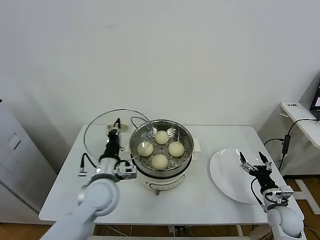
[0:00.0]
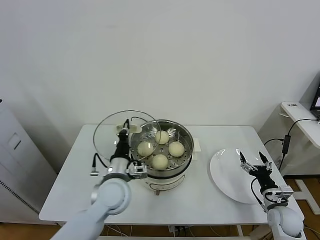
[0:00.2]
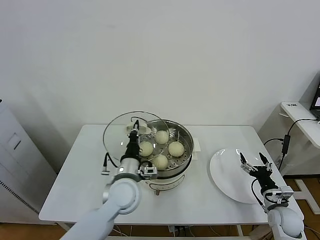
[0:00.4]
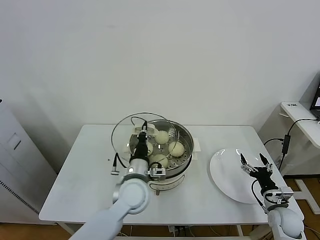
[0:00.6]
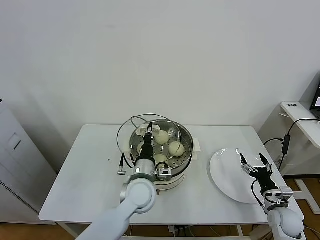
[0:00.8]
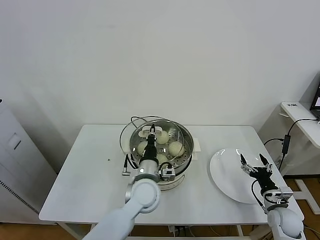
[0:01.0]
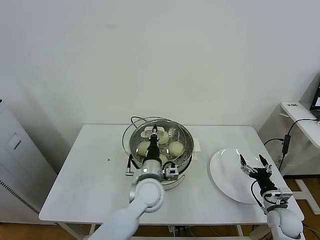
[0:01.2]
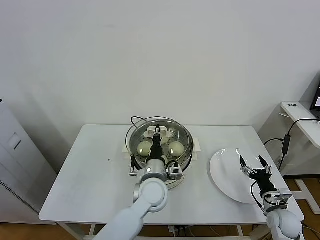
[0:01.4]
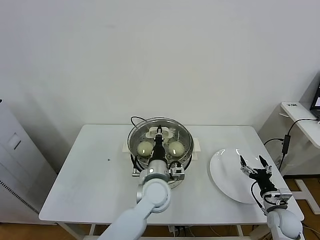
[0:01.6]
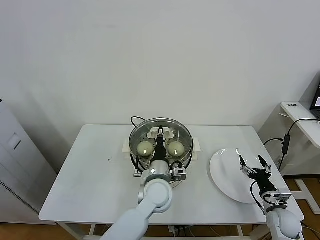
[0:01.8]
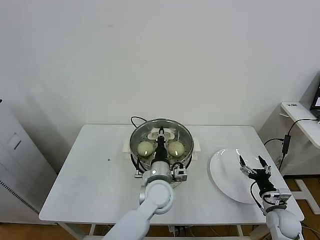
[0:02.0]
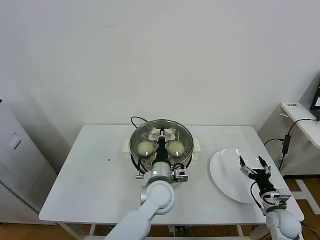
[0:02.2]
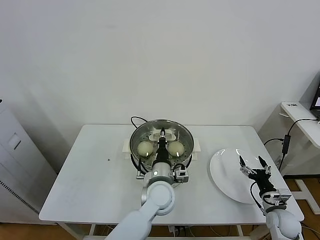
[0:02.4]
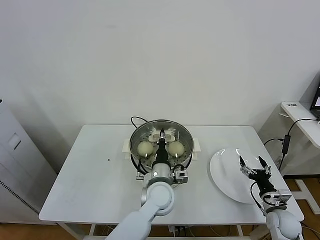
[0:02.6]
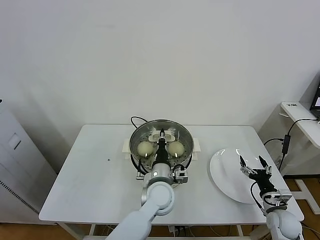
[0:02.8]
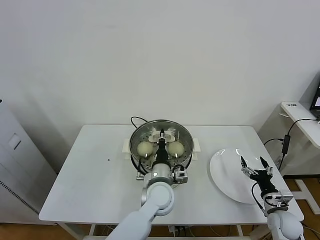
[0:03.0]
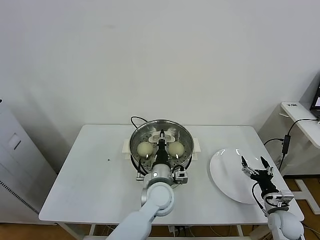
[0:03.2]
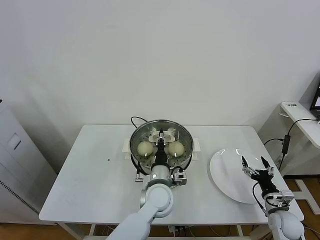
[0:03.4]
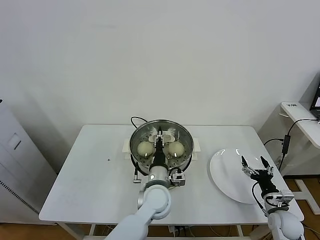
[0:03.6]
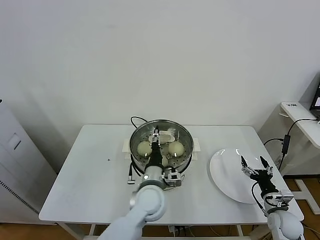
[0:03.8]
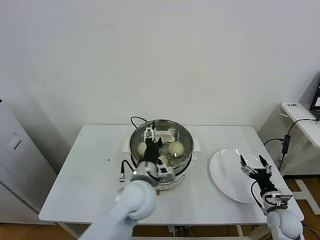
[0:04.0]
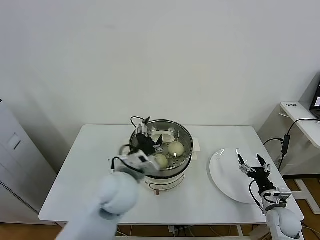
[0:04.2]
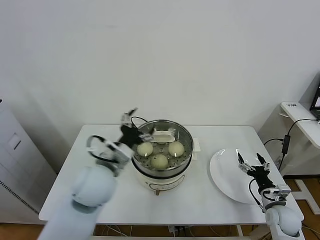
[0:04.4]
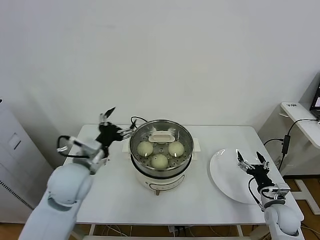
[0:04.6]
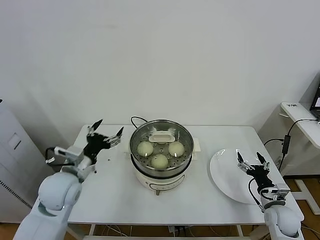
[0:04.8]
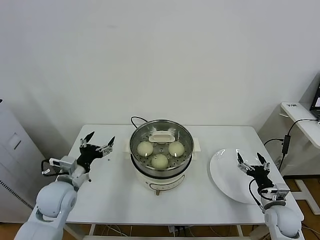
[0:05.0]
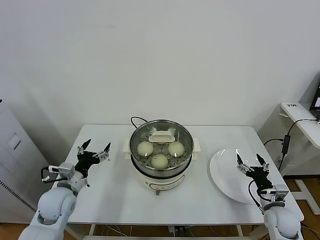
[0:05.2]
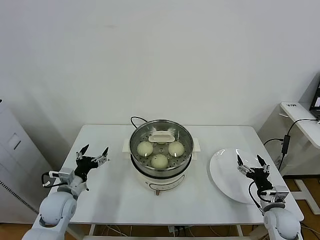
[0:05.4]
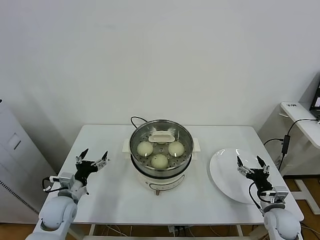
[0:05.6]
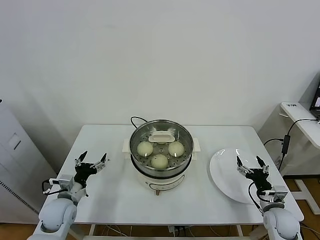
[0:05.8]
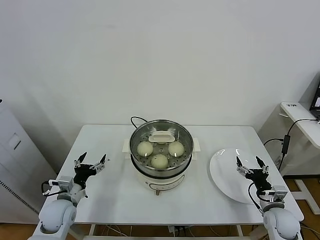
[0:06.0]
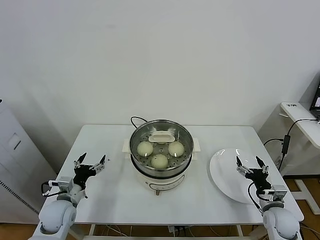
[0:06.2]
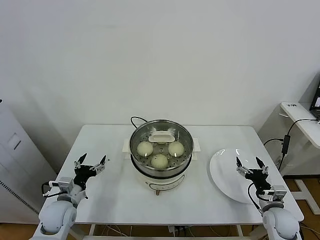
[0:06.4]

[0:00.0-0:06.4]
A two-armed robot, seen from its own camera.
Task of the whole recording: take steamed baozi put them in steamer.
Step, 0:00.0 to 0:04.0: Place the pot lid on the steamer with left gripper.
0:00.0 to 0:01.6: The left gripper moves to the right, some 15 cm.
0:01.6 to 0:03.2: There are only small adjustments of the grippers.
0:03.2 to 0:04.8: The left gripper heads to the left and upward, covering some 25 cm, and opens.
0:04.8 to 0:06.4: The left gripper heads downward and to the left, covering about 20 cm.

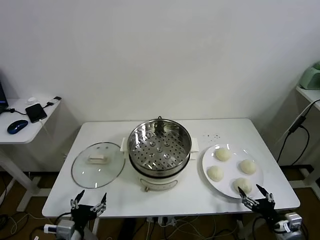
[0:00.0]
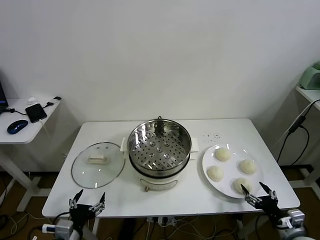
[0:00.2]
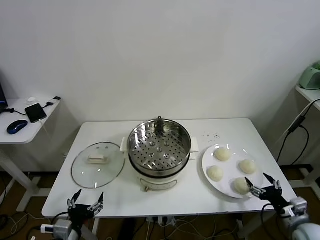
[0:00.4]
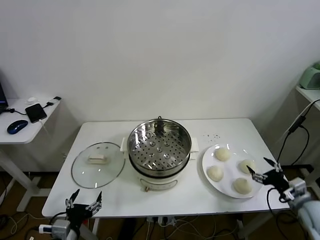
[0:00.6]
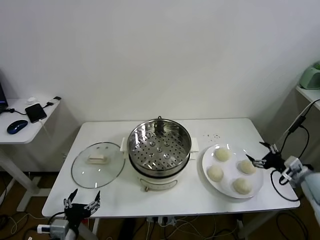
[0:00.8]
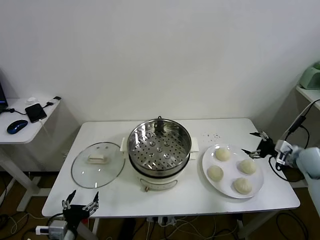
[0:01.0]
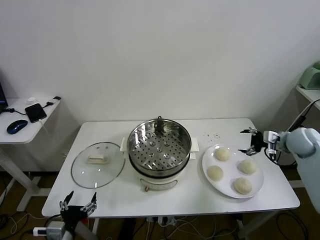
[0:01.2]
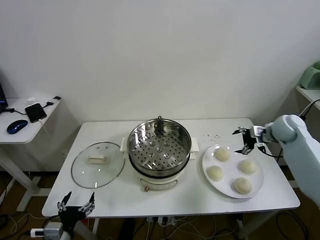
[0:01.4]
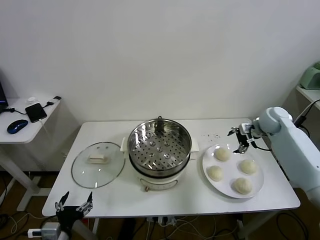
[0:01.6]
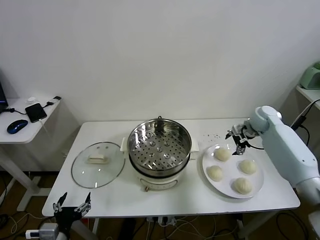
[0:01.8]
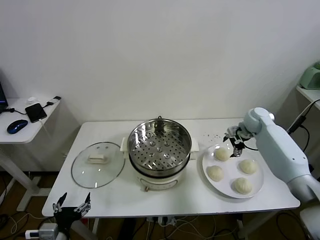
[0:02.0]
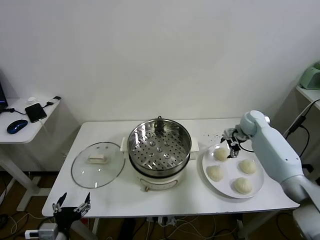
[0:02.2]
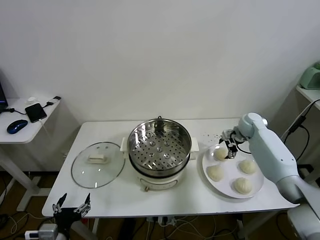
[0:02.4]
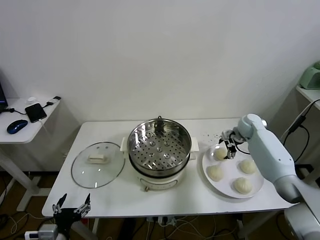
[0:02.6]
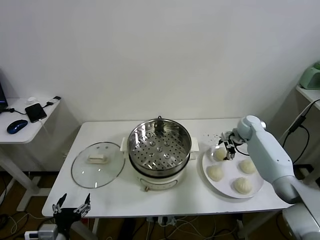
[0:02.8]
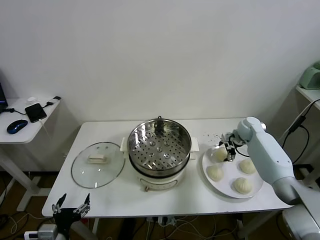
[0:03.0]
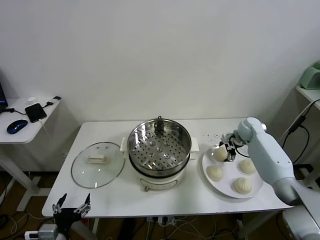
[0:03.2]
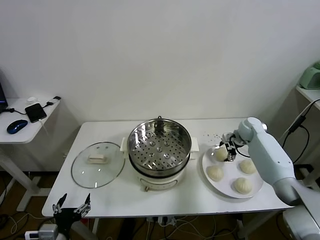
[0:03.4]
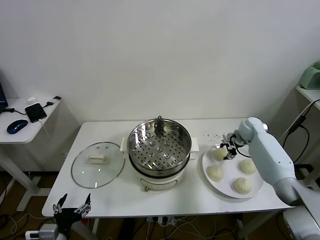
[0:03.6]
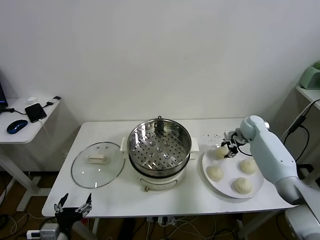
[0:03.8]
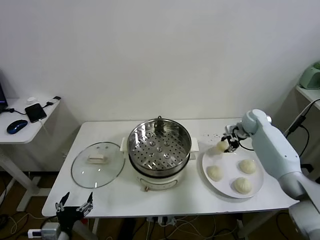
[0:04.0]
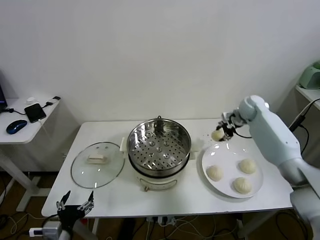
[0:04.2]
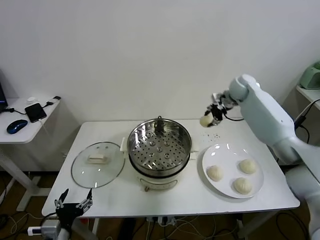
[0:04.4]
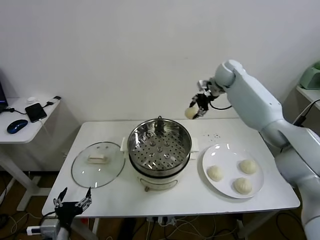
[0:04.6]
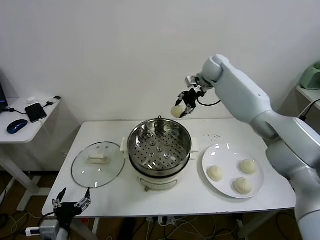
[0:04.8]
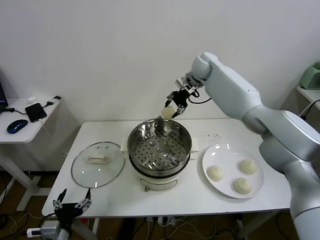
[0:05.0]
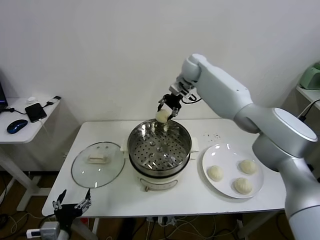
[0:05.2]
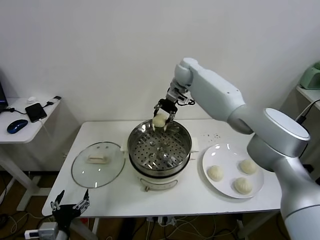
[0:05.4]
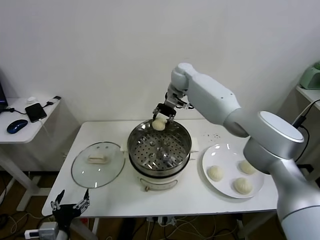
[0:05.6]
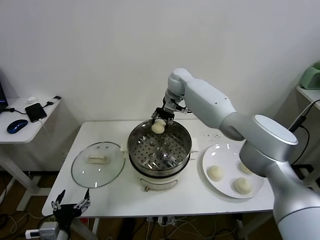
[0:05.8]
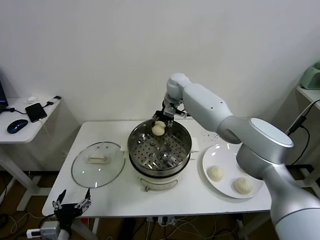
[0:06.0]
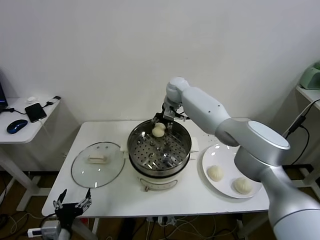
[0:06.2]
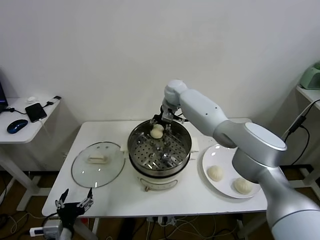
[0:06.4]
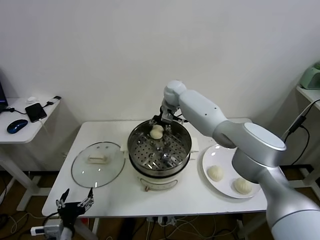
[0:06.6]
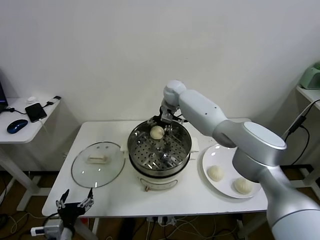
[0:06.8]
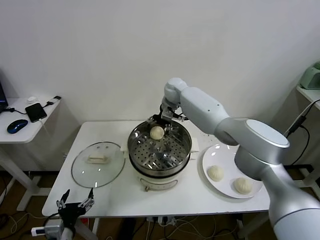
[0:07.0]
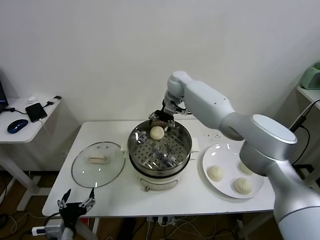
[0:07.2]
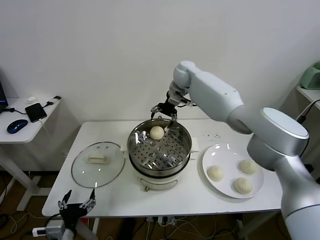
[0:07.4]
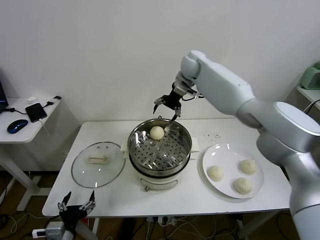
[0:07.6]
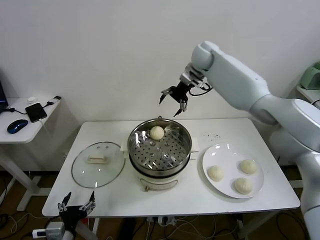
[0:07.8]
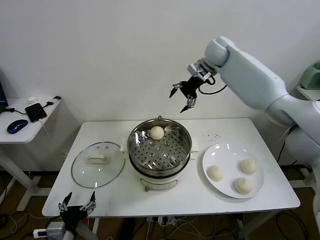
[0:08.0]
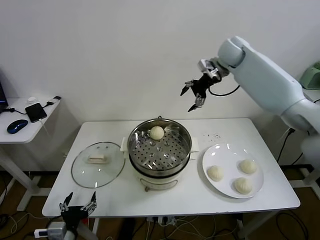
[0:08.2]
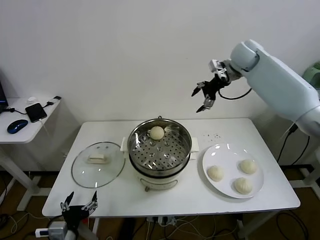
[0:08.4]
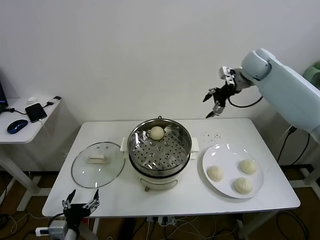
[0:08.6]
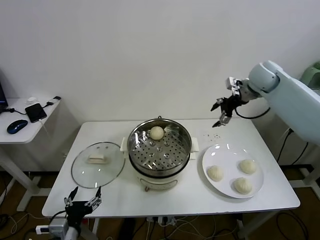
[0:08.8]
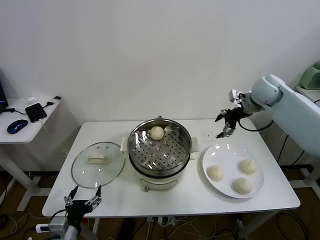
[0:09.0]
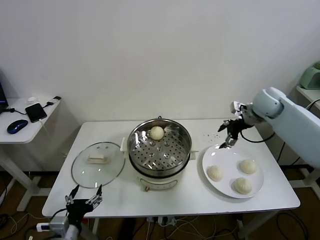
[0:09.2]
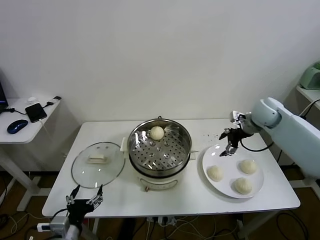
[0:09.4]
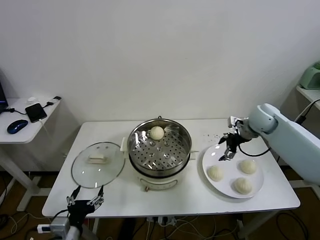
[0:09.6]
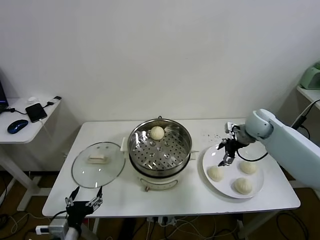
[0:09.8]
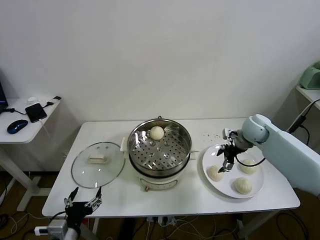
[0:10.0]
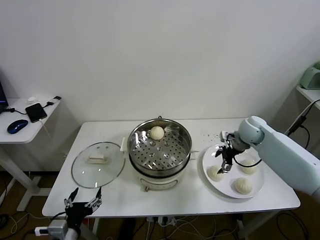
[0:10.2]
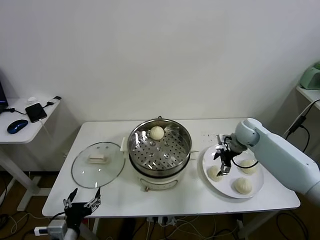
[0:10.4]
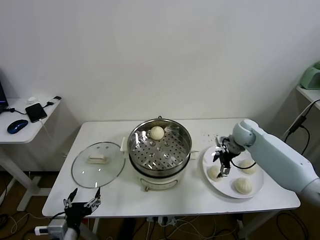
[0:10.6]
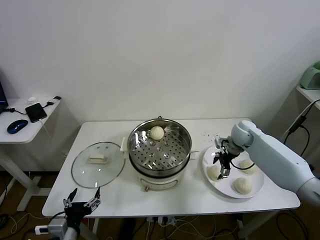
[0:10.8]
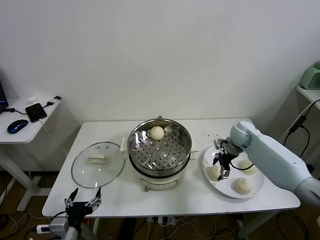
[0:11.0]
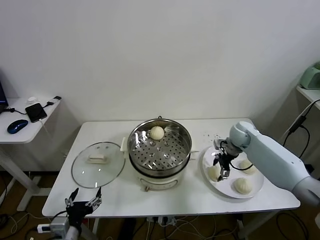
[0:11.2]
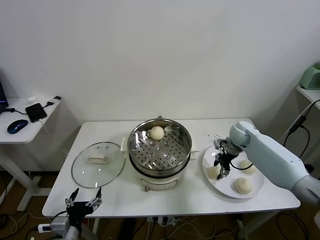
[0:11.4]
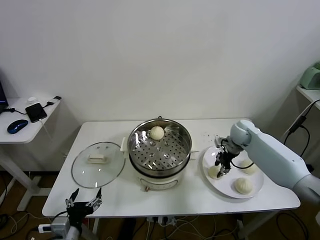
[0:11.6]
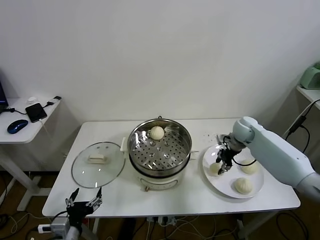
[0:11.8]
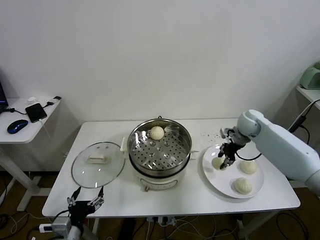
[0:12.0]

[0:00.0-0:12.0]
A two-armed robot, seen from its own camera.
Task of the whole recording: take steamed baozi put them in steamer.
Step, 0:00.0 to 0:03.6: Grasp the baozi in the plate with right gripper.
Step, 0:03.8 to 0:06.8: Place the baozi on the steamer with right gripper.
Step, 0:07.0 to 0:11.4: Grasp the baozi in the plate with right gripper.
0:01.6 to 0:03.0: The right gripper moves downward, roughly 10 cm.
0:03.0 to 0:04.4: The right gripper goes about 25 cm upward and to the left, and closes.
0:04.4 to 0:06.0: The right gripper moves to the left, some 20 cm.
0:06.0 to 0:07.6: The right gripper moves upward and to the right, approximately 15 cm, and opens up.
0:07.6 to 0:09.0: The right gripper is displaced to the right and backward by some 25 cm.
0:09.0 to 0:10.4: The right gripper goes roughly 15 cm downward.
0:10.4 to 0:12.0: The right gripper shifts by some 5 cm, and closes up.

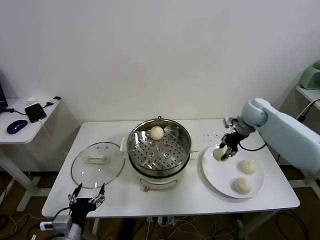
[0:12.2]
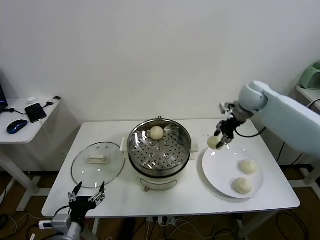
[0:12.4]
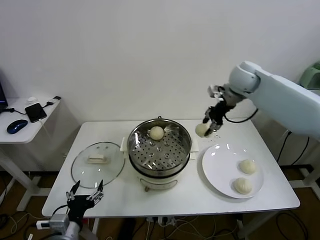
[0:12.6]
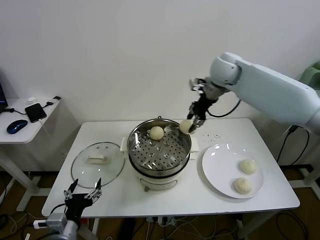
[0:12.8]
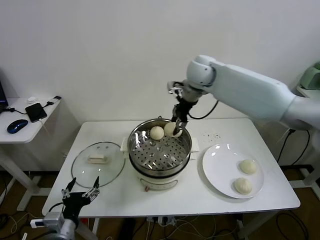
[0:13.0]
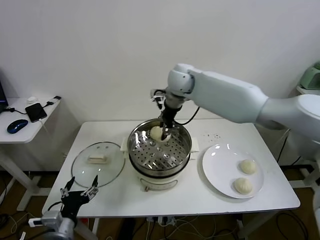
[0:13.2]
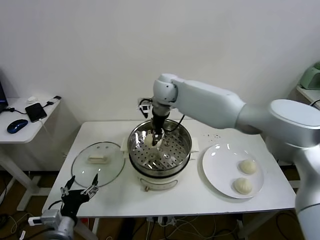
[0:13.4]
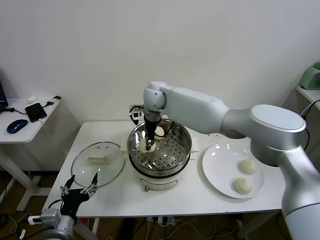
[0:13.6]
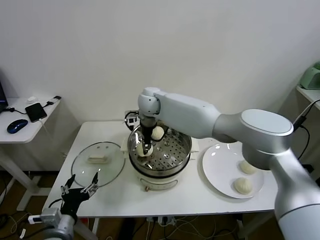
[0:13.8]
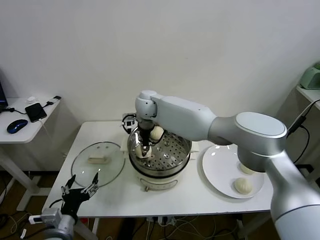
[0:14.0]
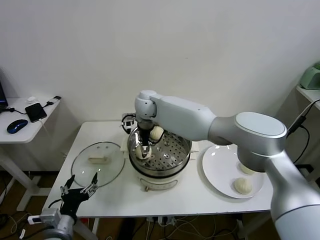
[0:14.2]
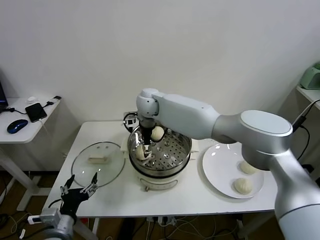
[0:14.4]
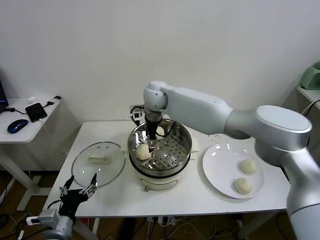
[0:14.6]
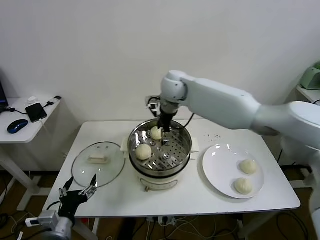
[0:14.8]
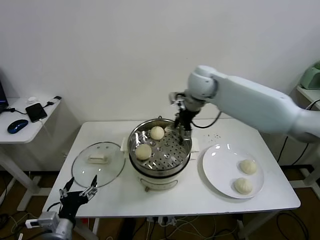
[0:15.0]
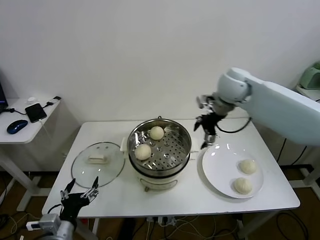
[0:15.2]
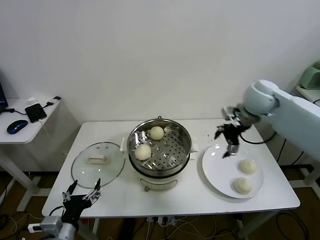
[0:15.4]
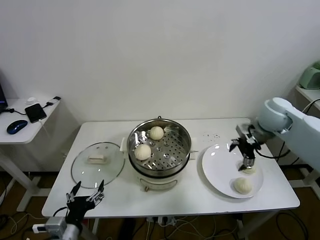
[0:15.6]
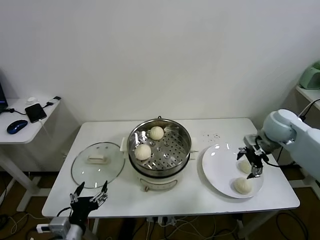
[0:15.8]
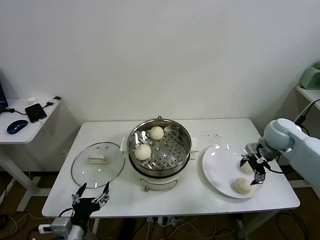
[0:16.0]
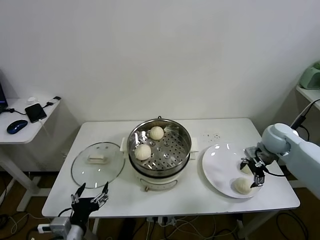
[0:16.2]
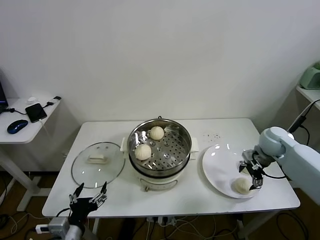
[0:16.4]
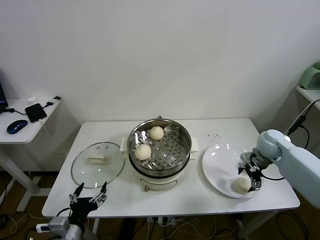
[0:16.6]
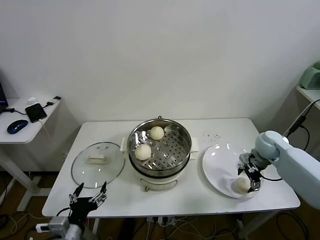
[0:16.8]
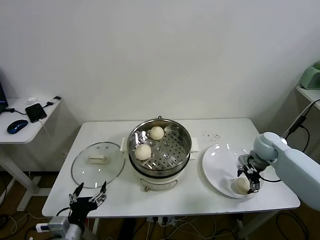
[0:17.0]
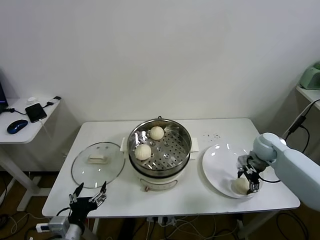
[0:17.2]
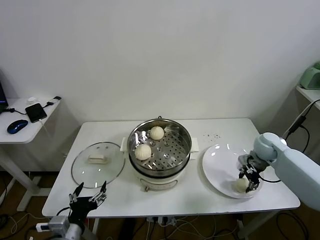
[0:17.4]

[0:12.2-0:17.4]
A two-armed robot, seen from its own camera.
Task of the whole recording: take steamed baozi put them in steamer.
Step, 0:12.2 to 0:14.2: Place the baozi on the steamer with right gripper.
Step, 0:14.4 to 0:17.2: Grasp the baozi in the plate with right gripper.
0:12.2 to 0:14.0: The right gripper travels to the left by about 40 cm.
0:14.0 to 0:15.6: The right gripper shifts about 40 cm to the right, and opens its fingers.
0:15.6 to 0:17.4: The right gripper travels downward by roughly 15 cm, and closes up.
